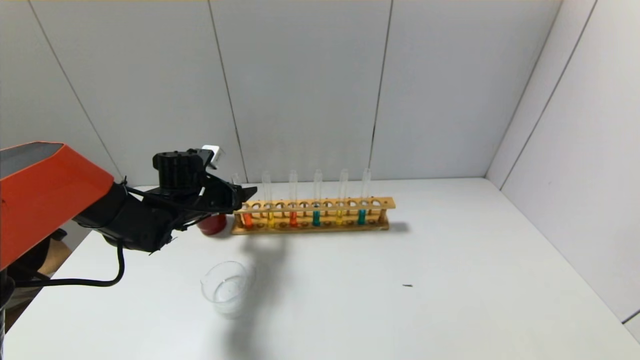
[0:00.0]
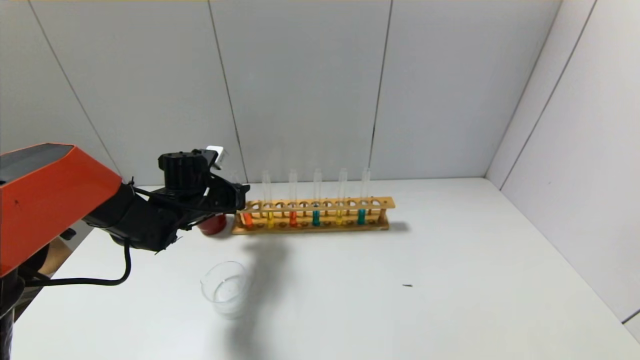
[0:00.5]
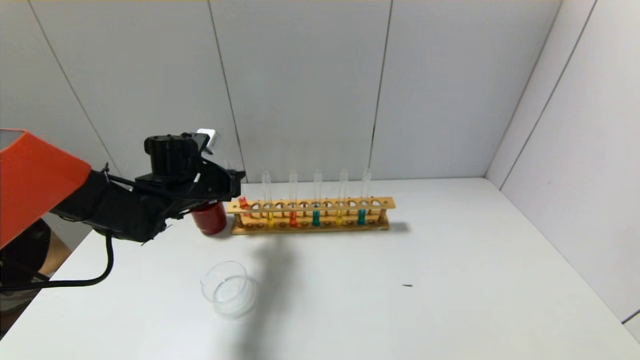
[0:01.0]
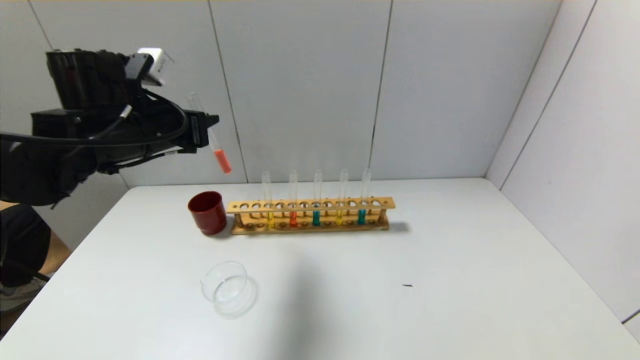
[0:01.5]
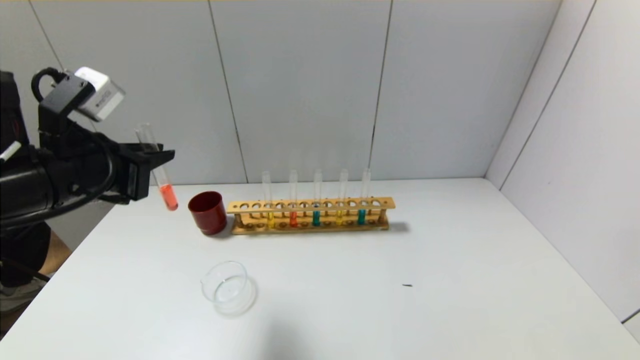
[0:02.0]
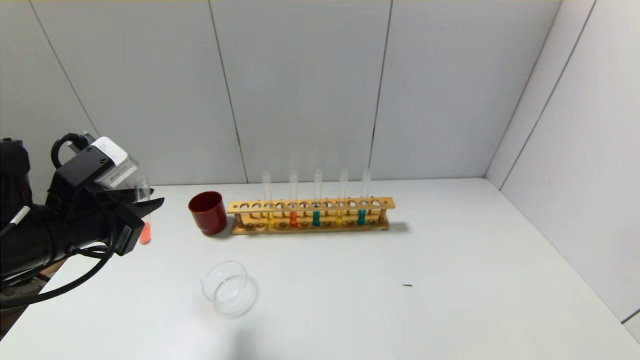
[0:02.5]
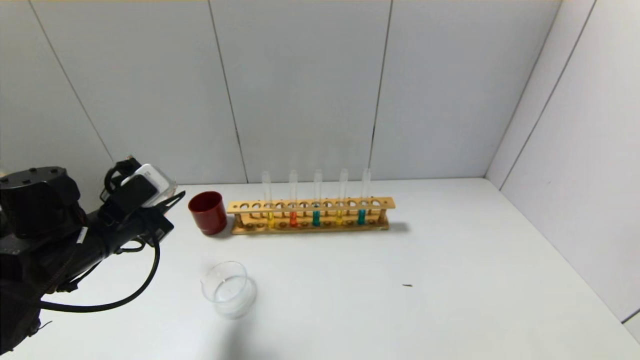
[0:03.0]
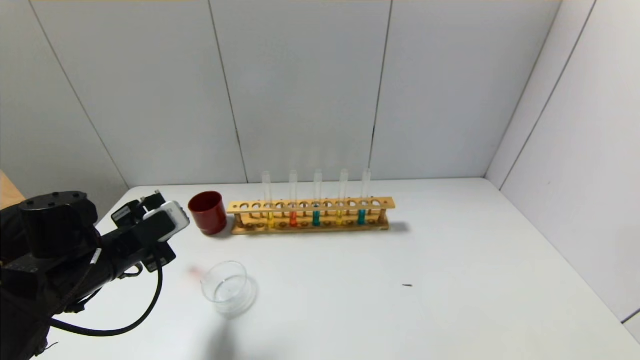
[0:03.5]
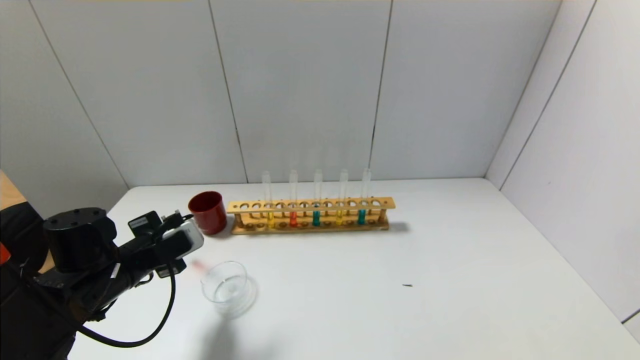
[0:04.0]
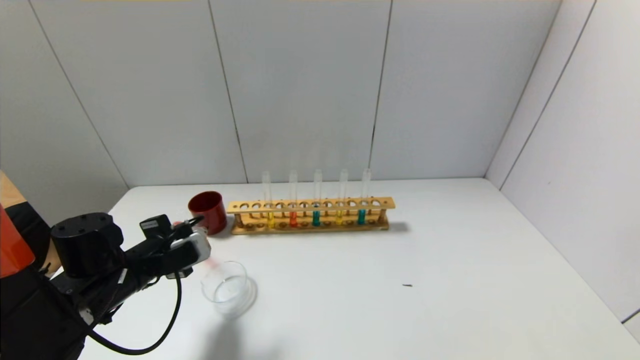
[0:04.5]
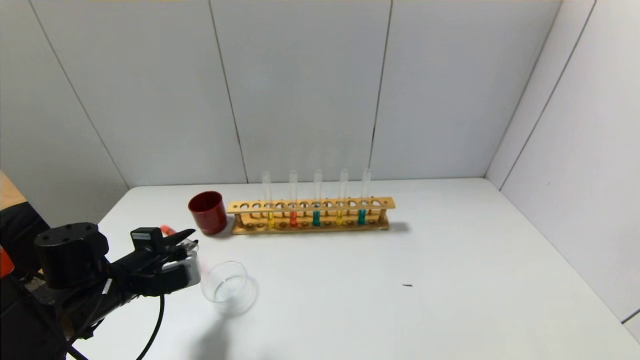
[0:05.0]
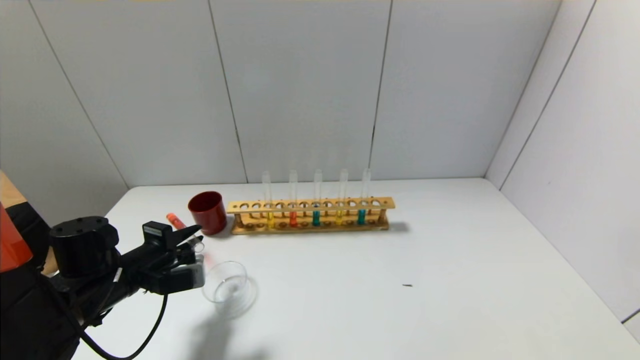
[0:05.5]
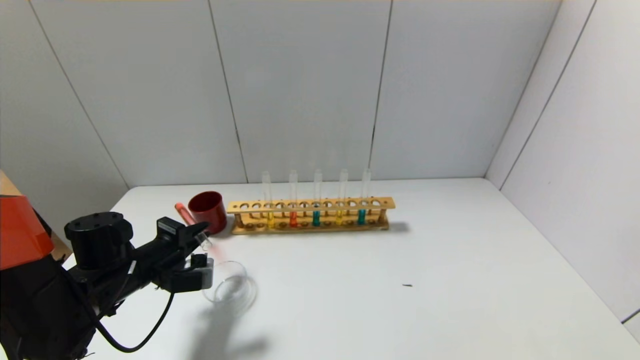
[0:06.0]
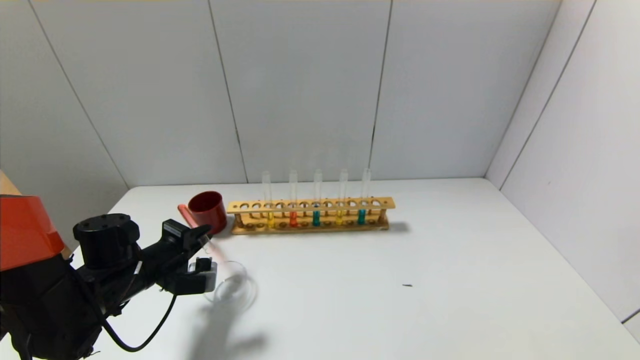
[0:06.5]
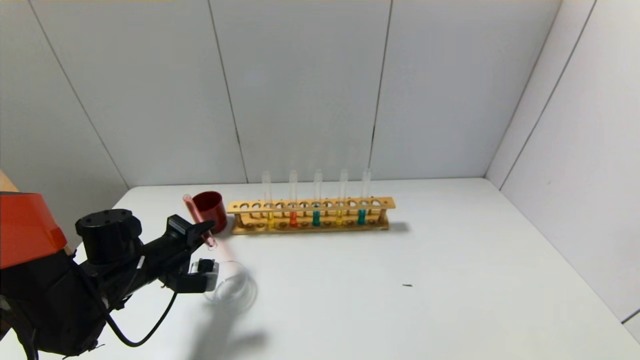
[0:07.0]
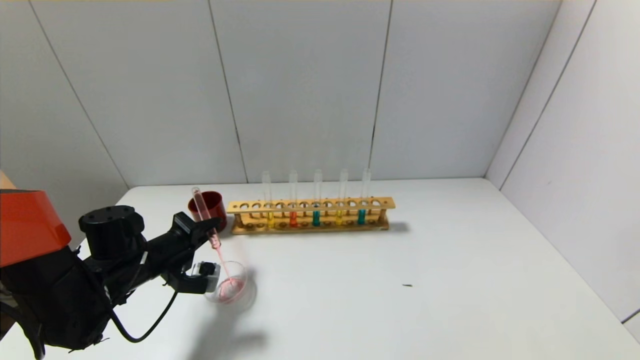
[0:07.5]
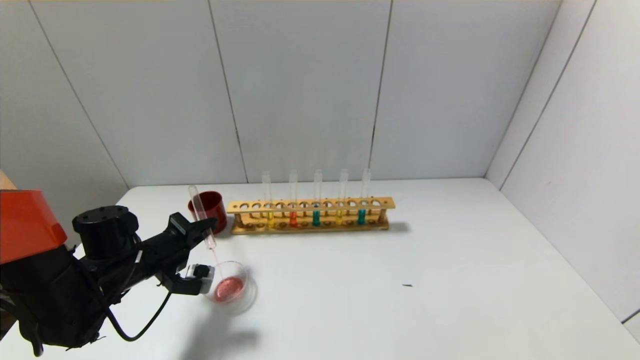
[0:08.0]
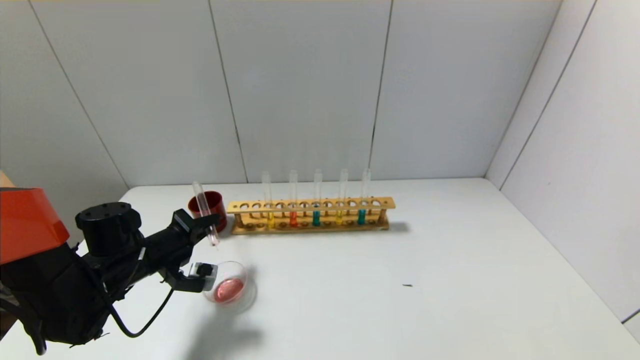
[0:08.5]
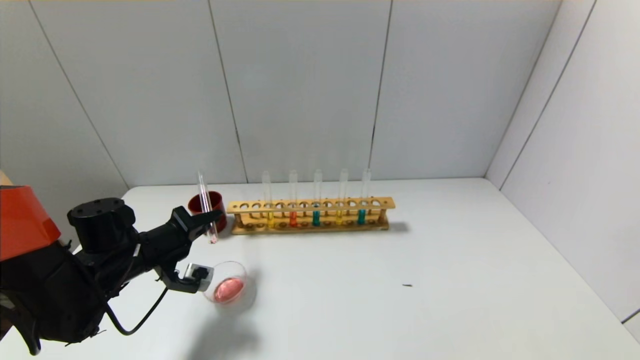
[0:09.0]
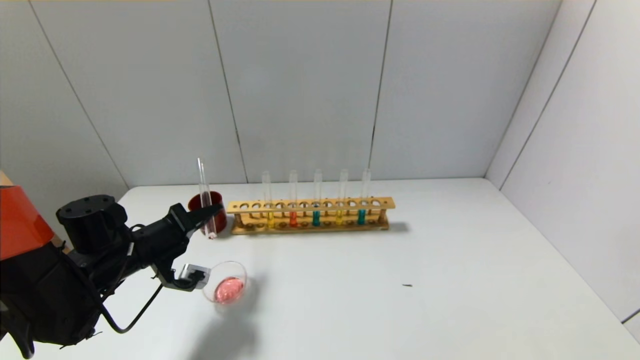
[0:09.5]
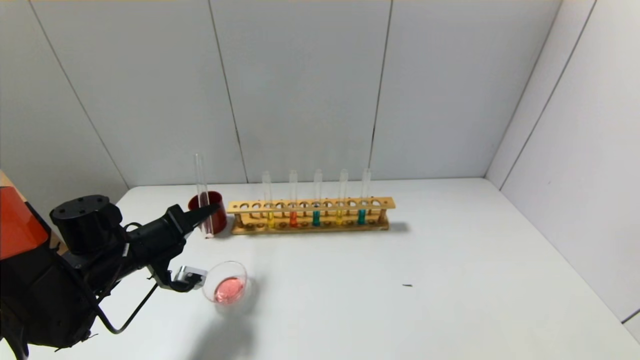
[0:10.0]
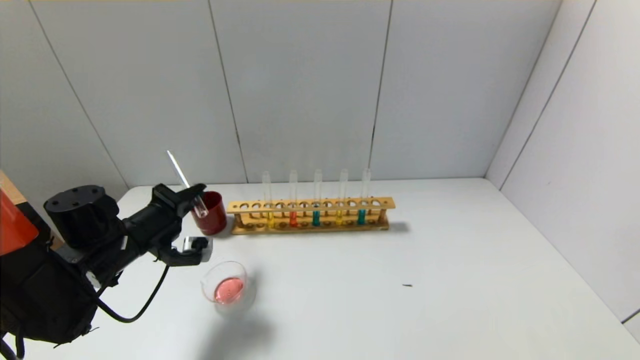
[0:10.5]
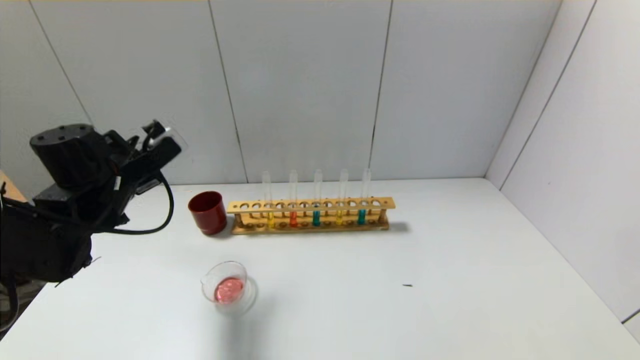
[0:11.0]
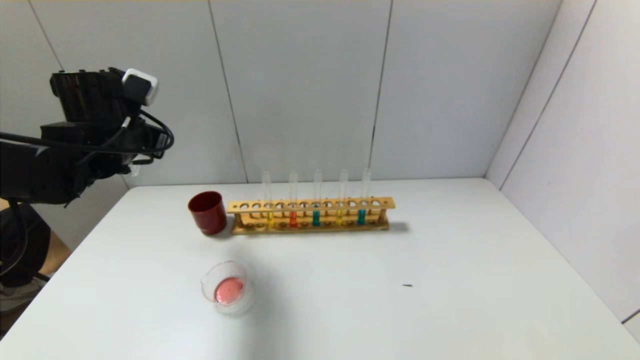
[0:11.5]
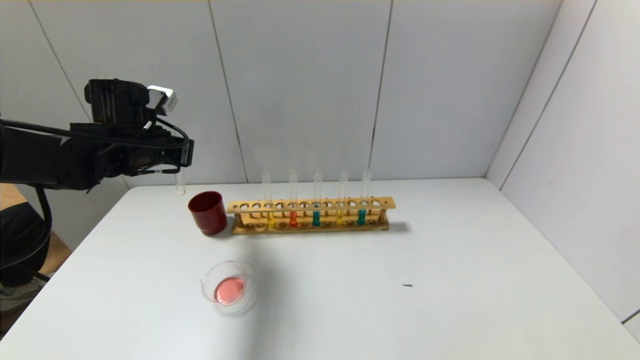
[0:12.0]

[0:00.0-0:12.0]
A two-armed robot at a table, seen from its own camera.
Step, 1.0 to 10.0 s: Pour the red reagent into the graduated cylinder with the left gripper.
0.0 to 2.0 s: The left gripper shifts approximately 25 cm backward and upward, and closes its fingers.
2.0 to 4.0 s: The left gripper goes roughly 15 cm downward.
6.0 to 8.0 s: There are only small adjustments of the grippers.
10.0 to 12.0 s: The left gripper is displaced upward and forward by about 15 cm.

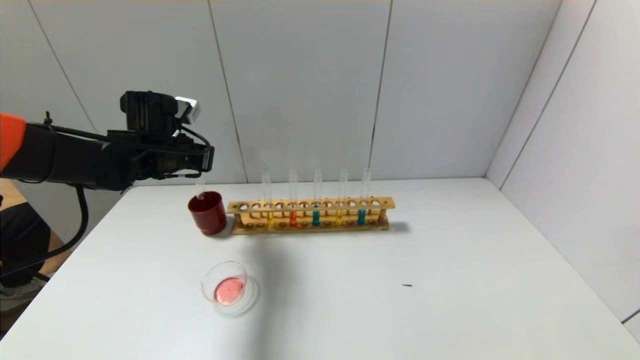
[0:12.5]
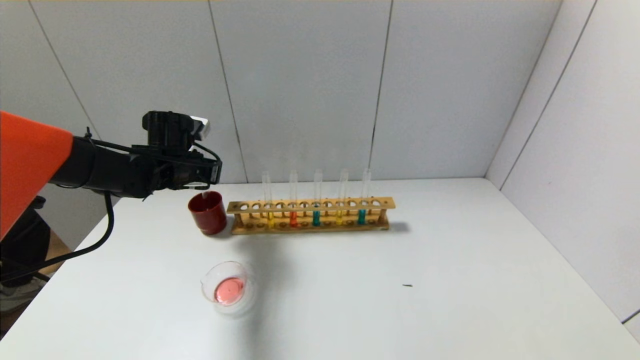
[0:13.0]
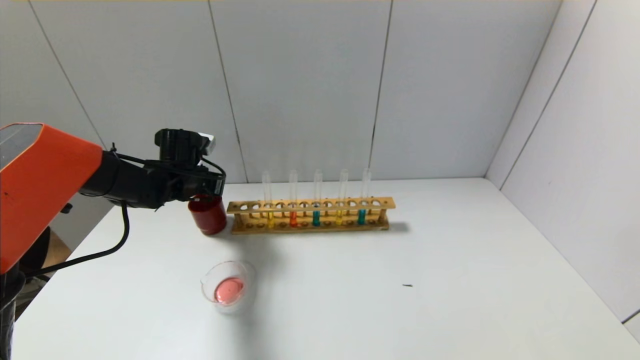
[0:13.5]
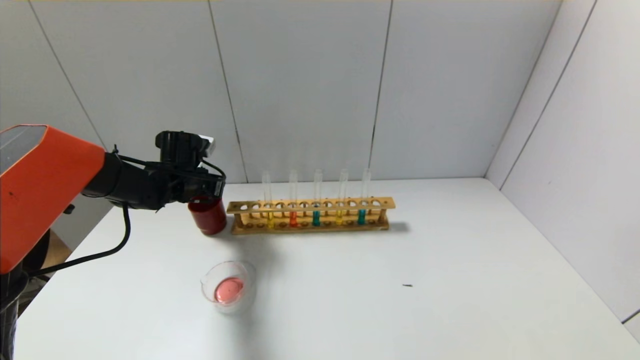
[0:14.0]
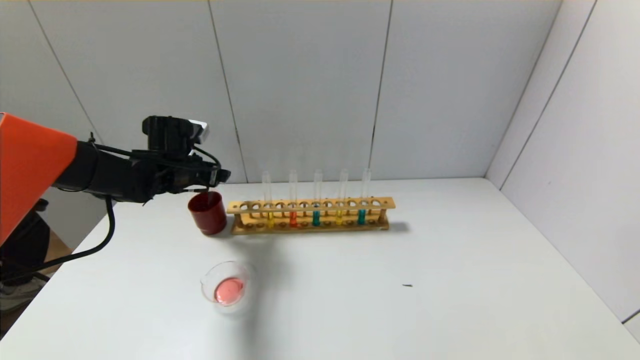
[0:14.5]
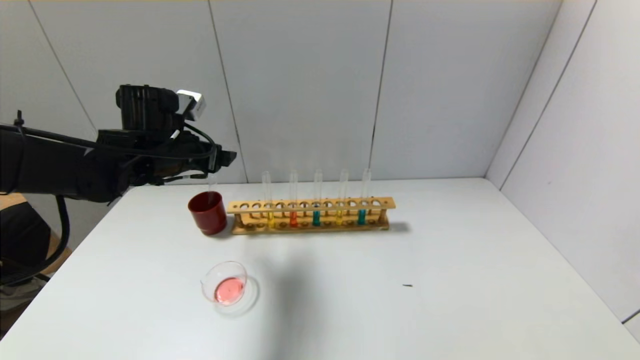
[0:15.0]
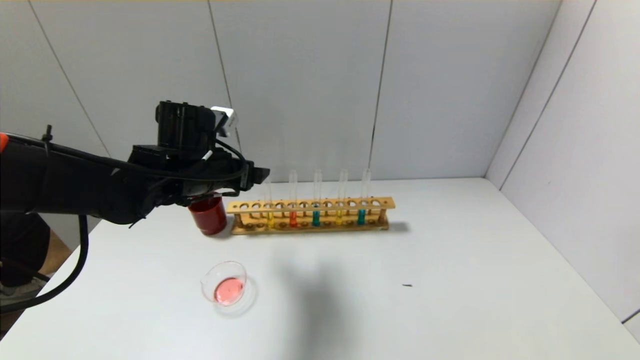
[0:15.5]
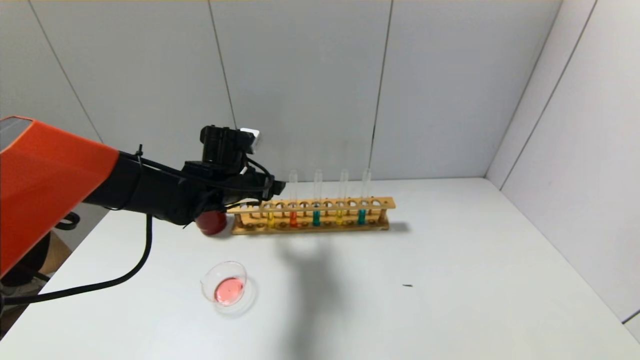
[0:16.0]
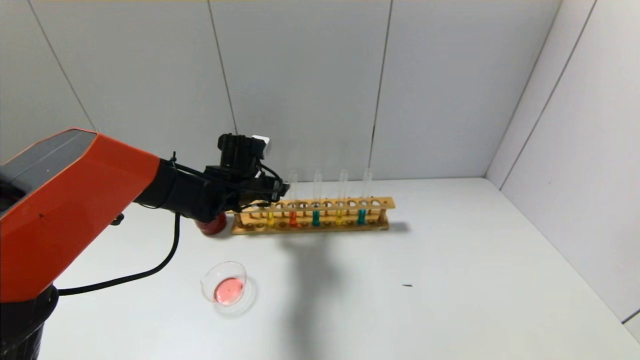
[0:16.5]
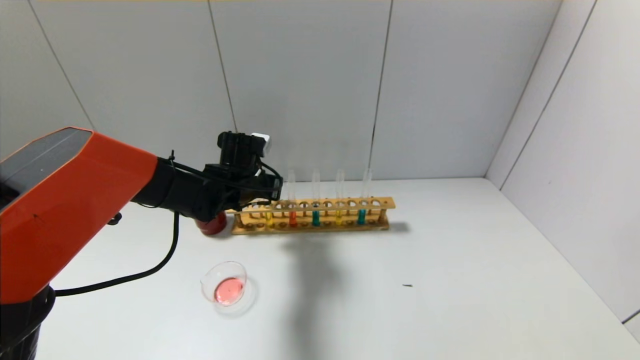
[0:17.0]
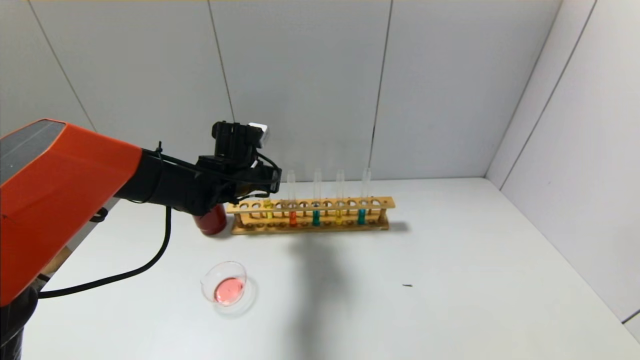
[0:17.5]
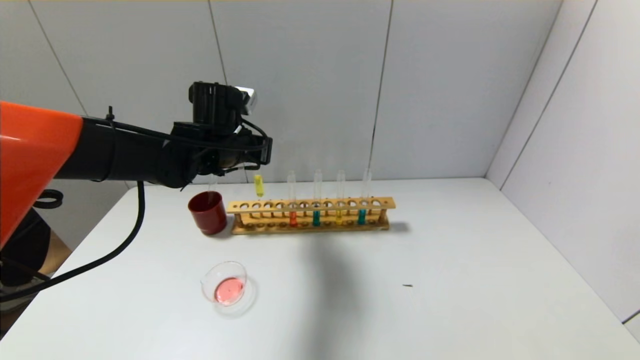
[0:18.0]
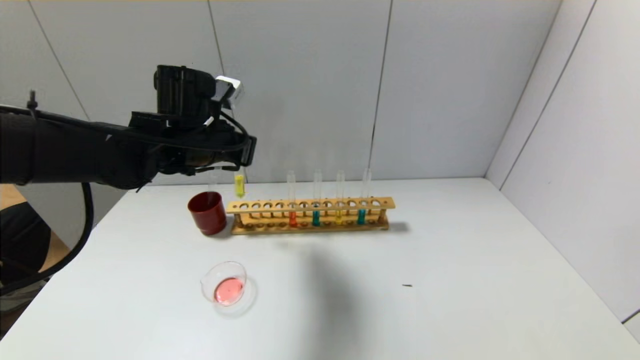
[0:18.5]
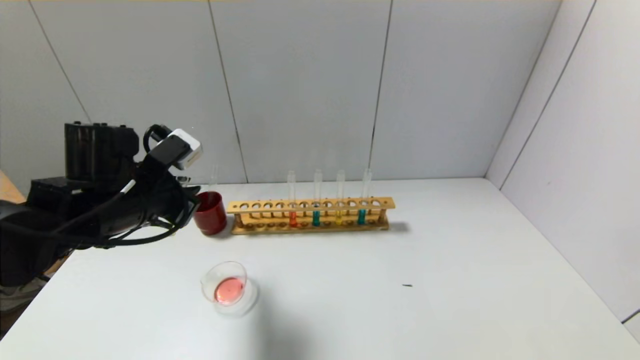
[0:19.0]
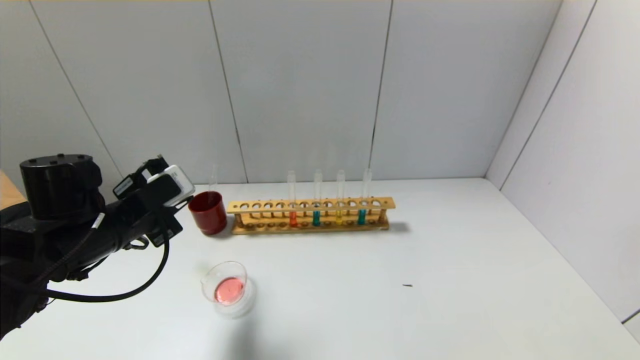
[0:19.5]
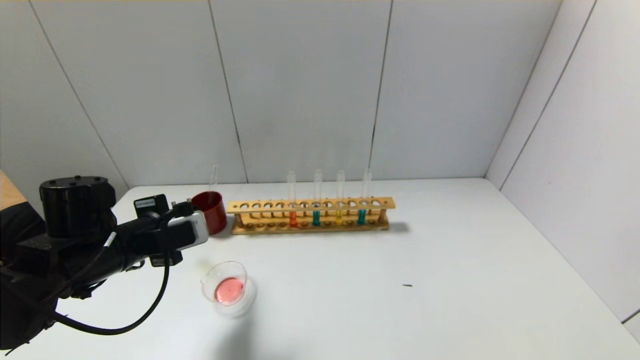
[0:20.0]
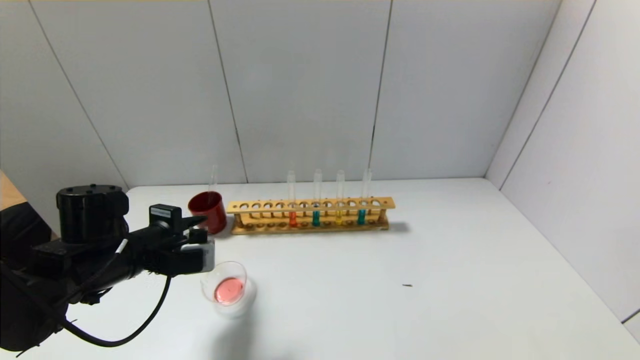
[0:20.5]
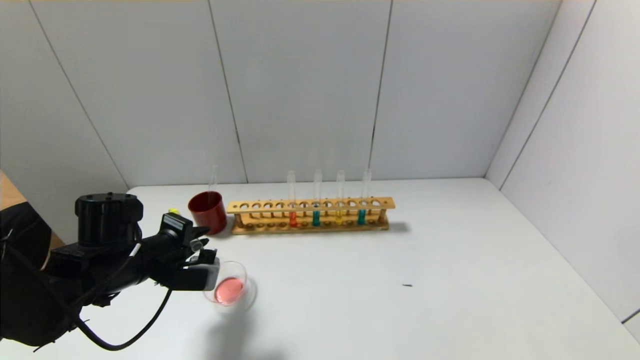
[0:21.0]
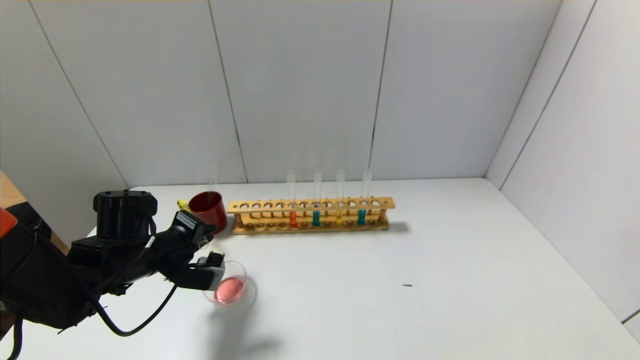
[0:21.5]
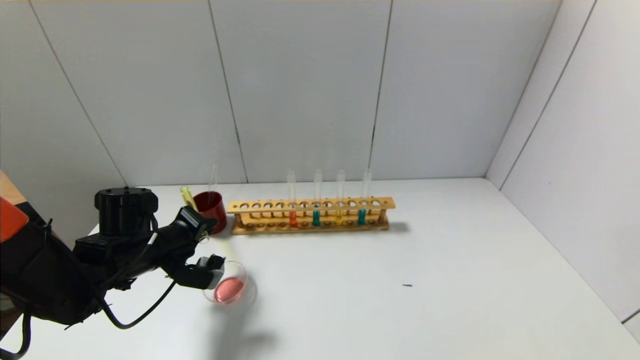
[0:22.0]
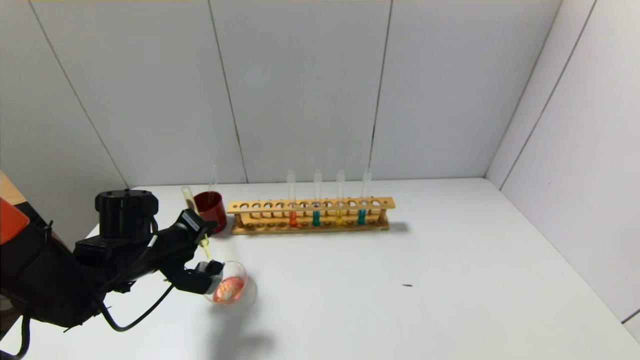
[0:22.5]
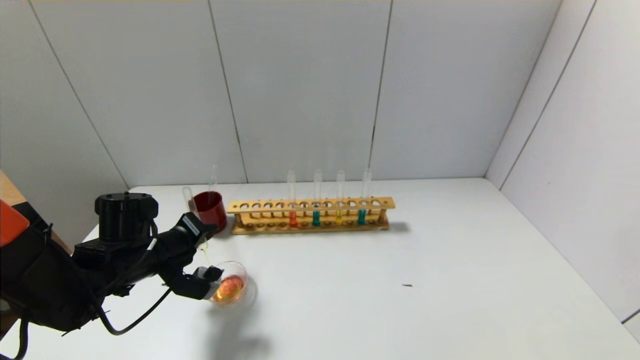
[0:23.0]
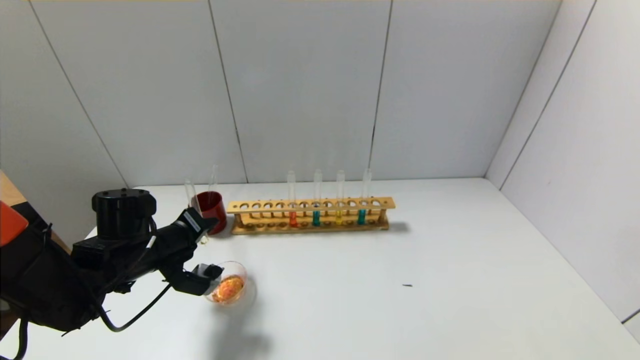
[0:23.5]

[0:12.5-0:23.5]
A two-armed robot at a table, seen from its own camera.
Step, 14.0 to 16.5 s: Grasp the yellow reagent with the left gripper.
12.5 to 14.5 s: The left gripper opens its fingers.
14.5 to 16.0 s: The left gripper heads to the right, covering roughly 10 cm.
16.0 to 18.0 s: The left gripper heads upward, covering about 5 cm, and closes up.
18.0 to 20.0 s: The left gripper moves backward, to the left and downward, roughly 20 cm.
20.0 to 21.5 s: The left gripper shifts by about 5 cm.
21.5 to 23.5 s: The grippers stay close to where they were, moving slightly.
